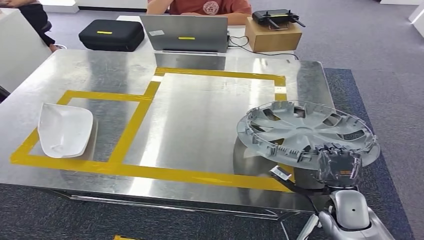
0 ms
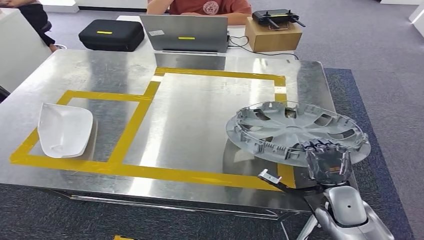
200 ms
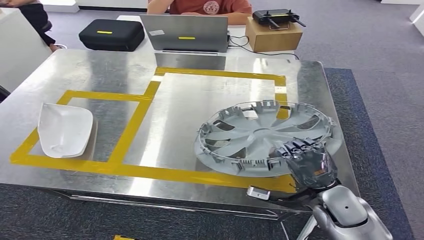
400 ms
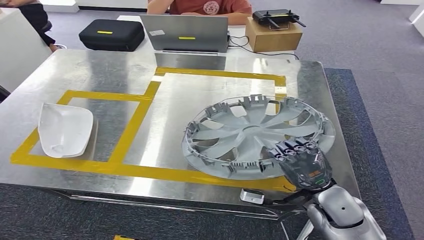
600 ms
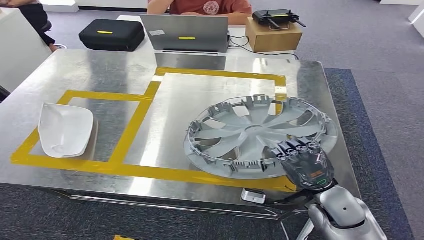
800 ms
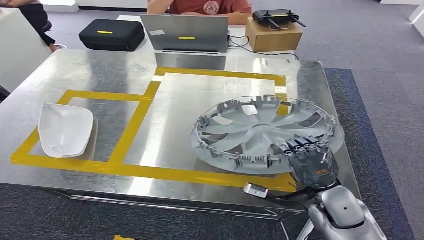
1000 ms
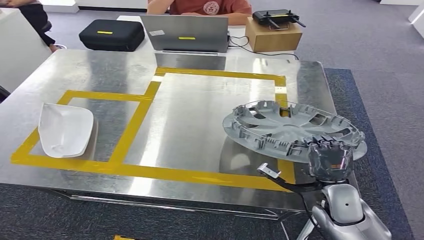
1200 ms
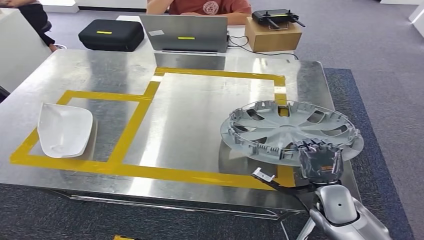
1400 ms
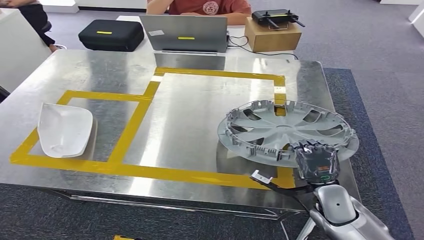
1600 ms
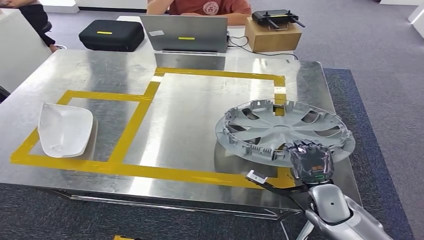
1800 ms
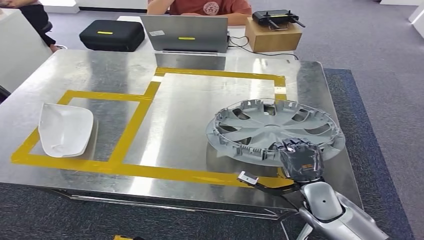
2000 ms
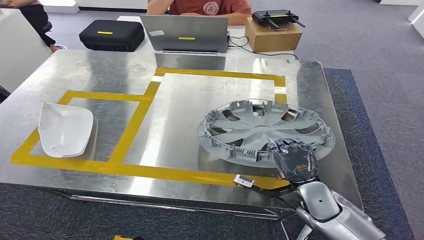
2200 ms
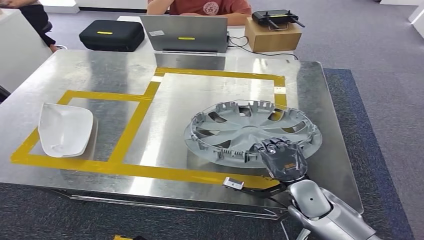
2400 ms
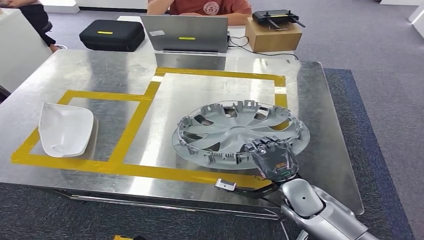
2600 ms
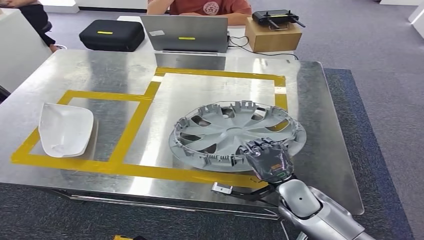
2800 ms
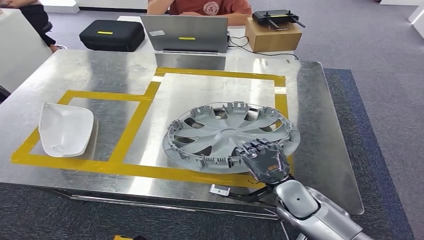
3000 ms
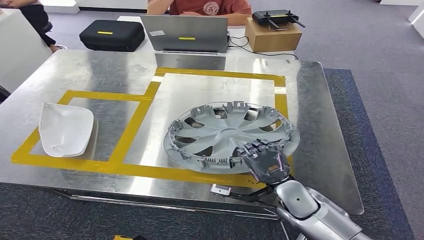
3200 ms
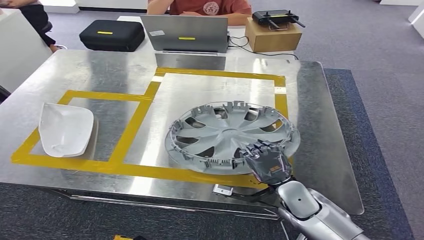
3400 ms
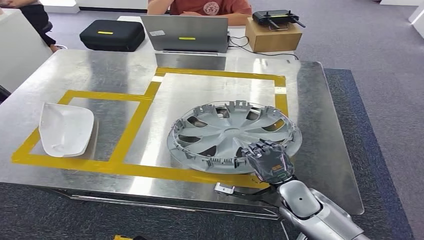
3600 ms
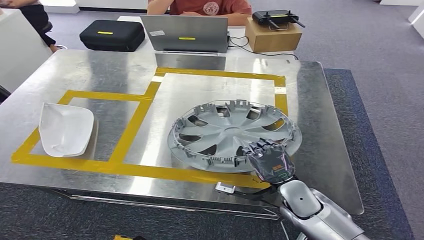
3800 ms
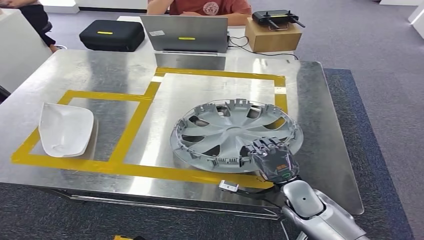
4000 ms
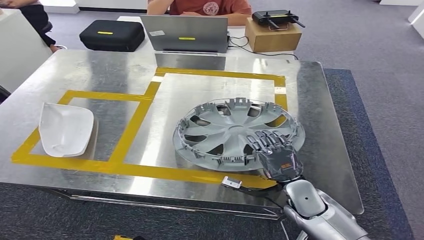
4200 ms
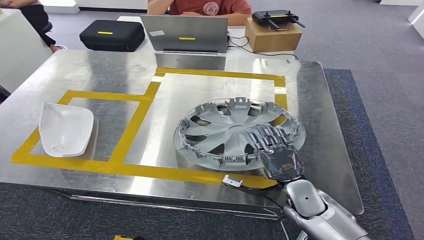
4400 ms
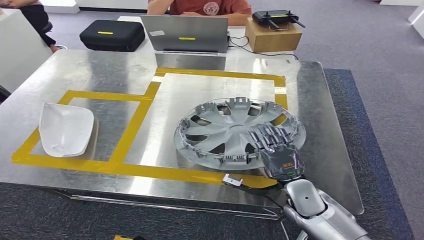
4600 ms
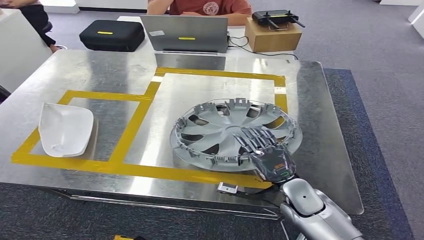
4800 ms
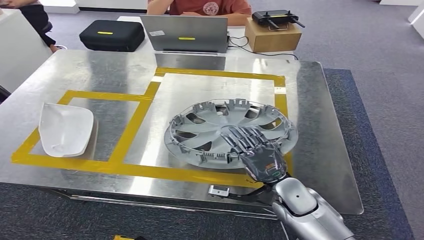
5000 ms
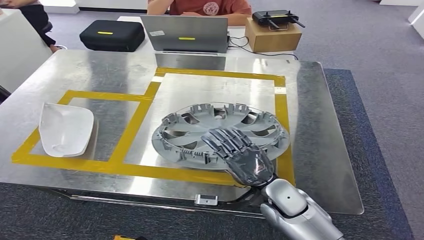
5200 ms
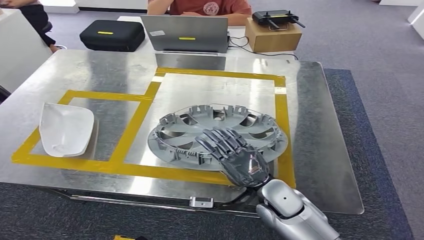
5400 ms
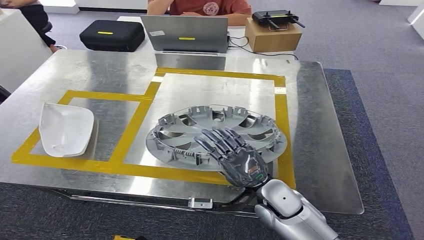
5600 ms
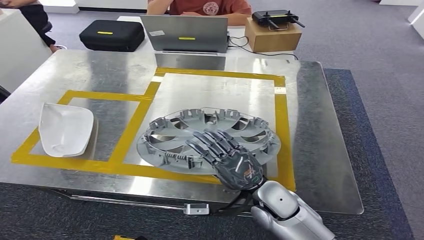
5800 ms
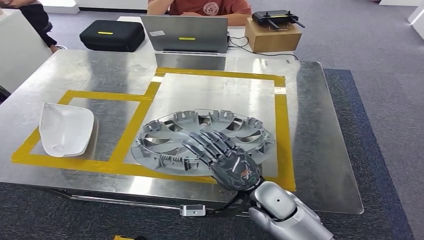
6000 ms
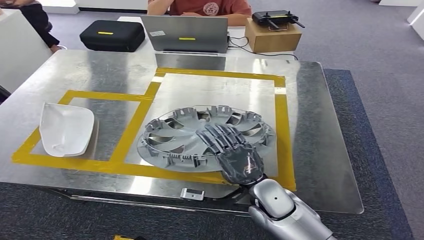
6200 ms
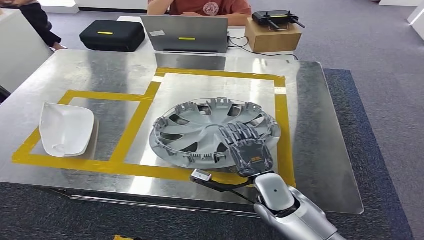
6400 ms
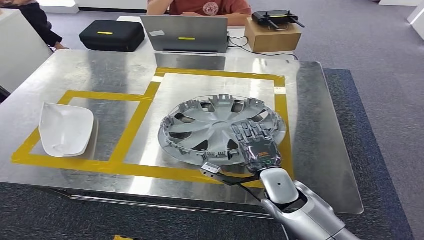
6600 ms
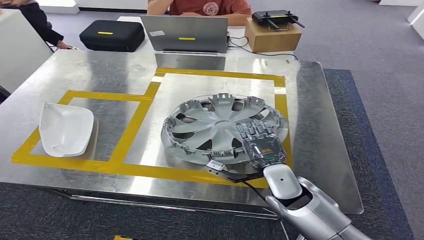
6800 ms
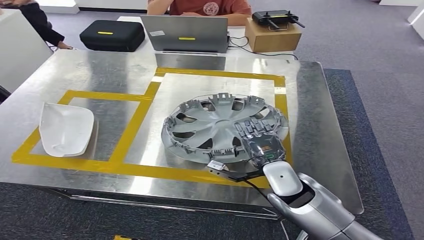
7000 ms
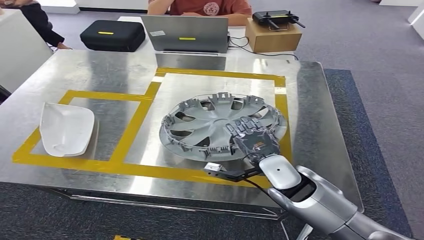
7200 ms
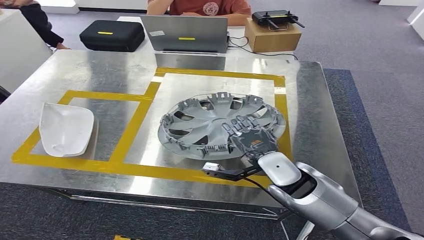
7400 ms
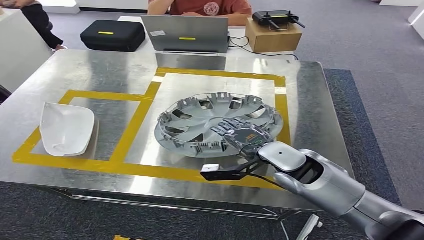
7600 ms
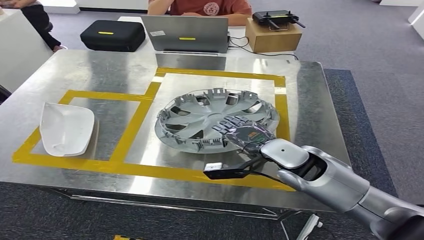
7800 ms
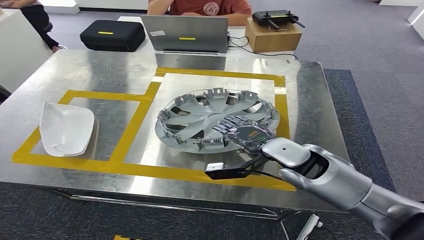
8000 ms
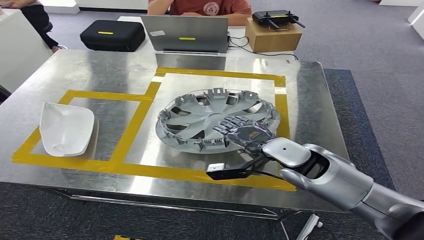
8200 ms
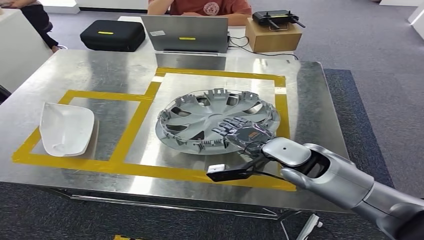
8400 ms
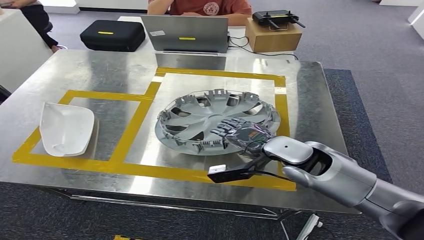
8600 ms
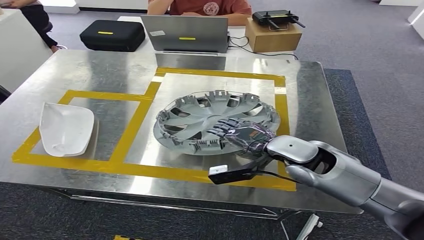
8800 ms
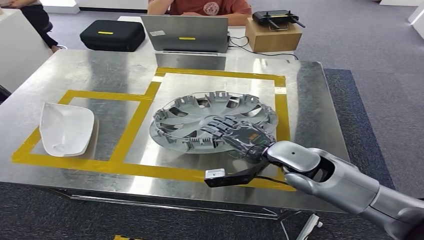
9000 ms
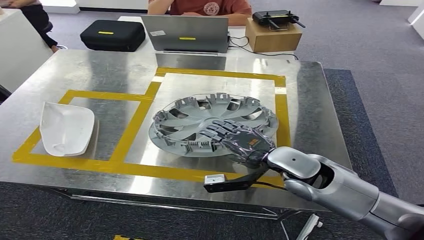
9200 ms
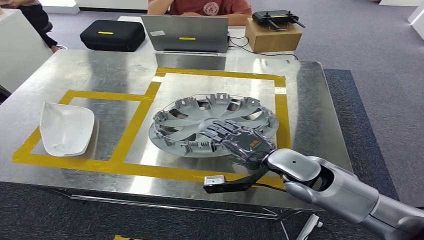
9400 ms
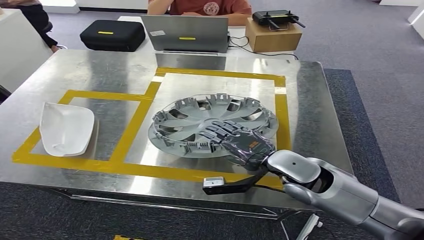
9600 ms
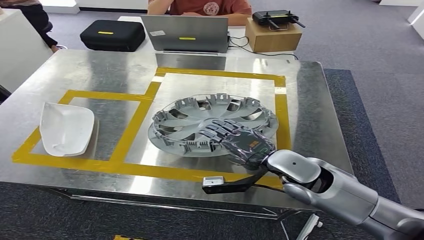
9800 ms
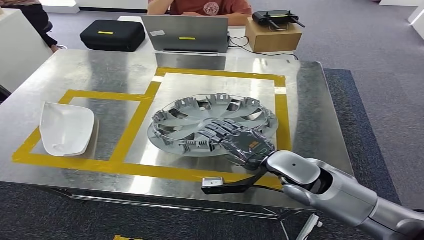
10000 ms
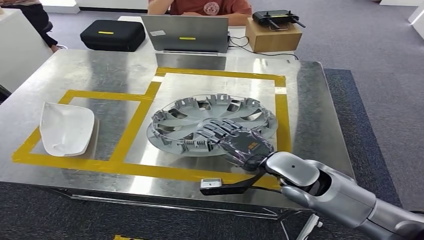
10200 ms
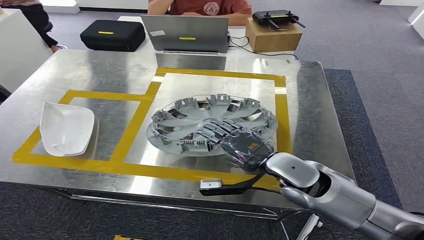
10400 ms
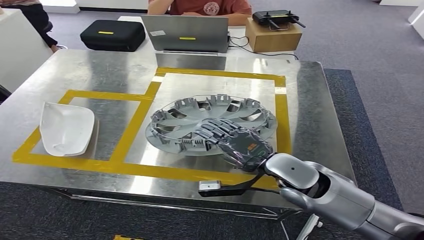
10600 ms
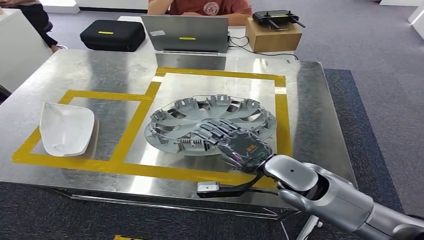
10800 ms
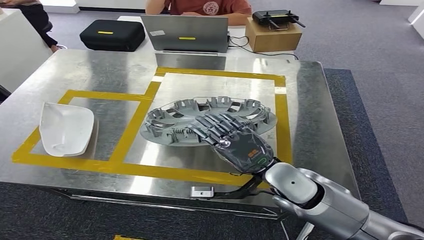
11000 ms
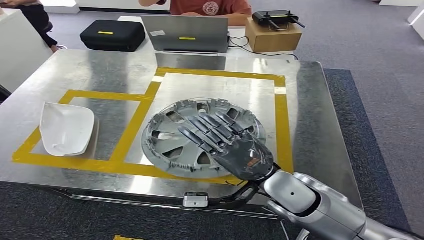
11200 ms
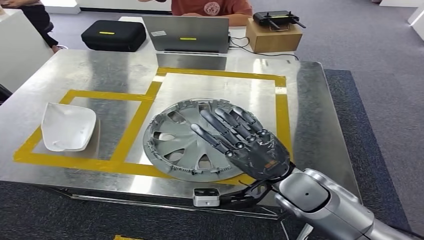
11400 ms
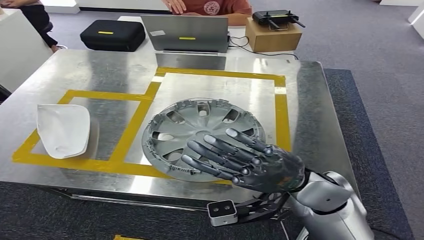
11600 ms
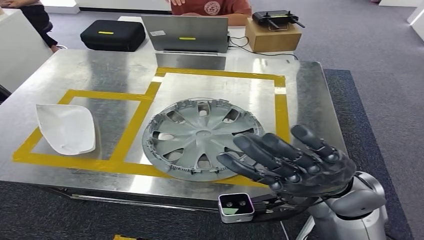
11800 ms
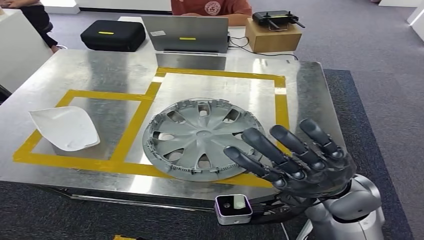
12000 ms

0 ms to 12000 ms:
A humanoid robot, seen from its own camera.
1600 ms to 3000 ms: The right hand is displaced to the left by some 10 cm.
3000 ms to 4400 ms: The hands make only small movements.
4400 ms to 6000 ms: The right hand heads to the left, covering about 10 cm.
6000 ms to 7600 ms: The right hand shifts some 10 cm forward and upward.
7600 ms to 9000 ms: The hands stay close to where they were, moving slightly.
9000 ms to 10400 ms: The hands make only small movements.
10400 ms to 12000 ms: The right hand heads upward and backward, covering approximately 10 cm.

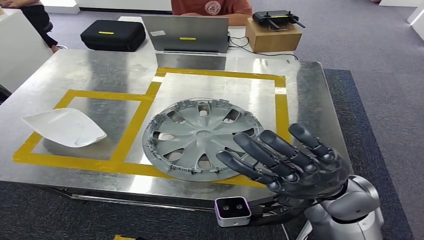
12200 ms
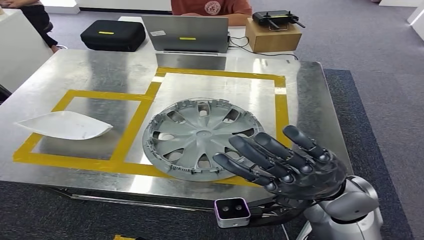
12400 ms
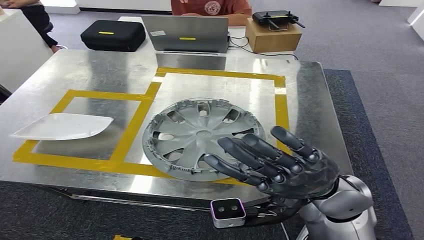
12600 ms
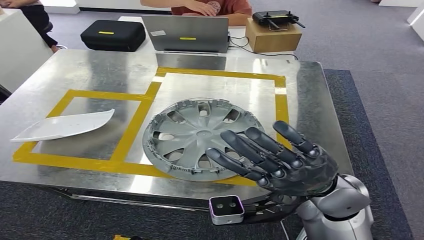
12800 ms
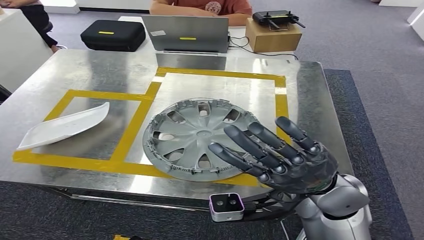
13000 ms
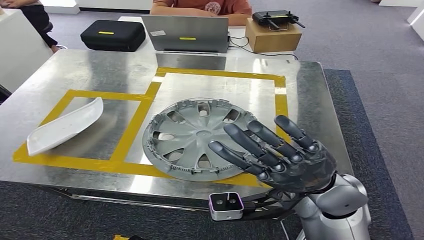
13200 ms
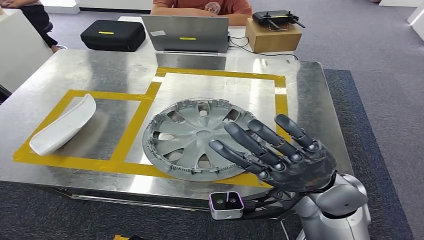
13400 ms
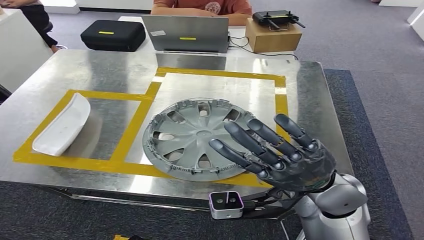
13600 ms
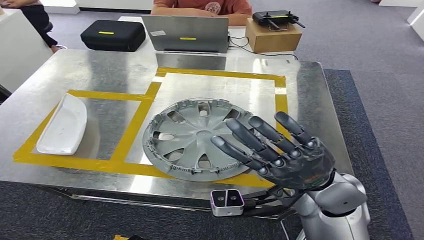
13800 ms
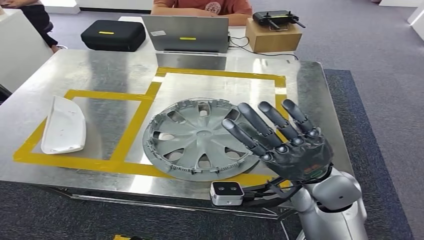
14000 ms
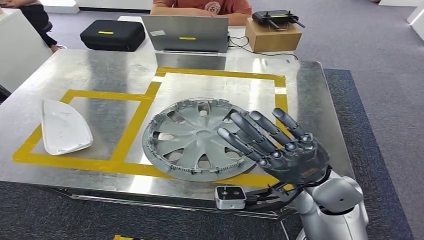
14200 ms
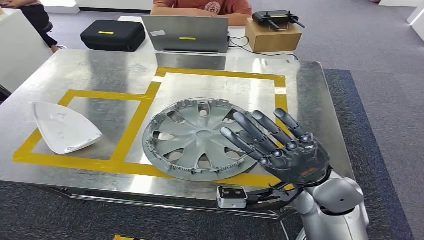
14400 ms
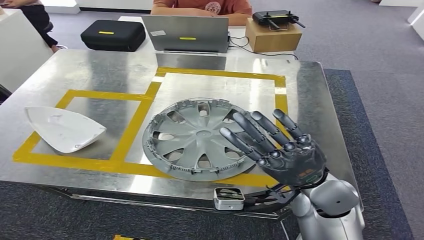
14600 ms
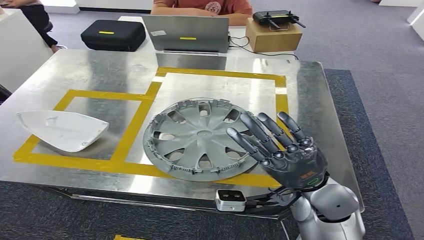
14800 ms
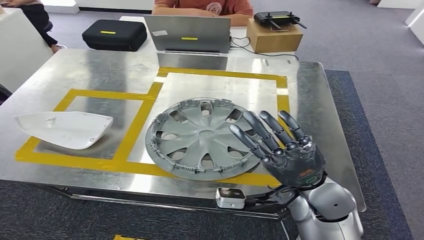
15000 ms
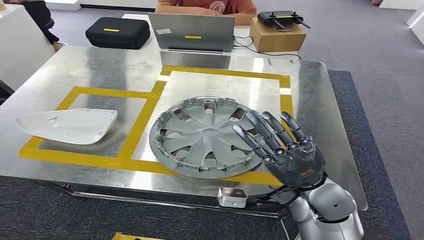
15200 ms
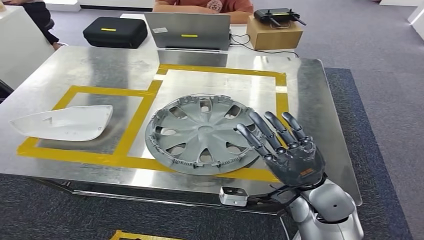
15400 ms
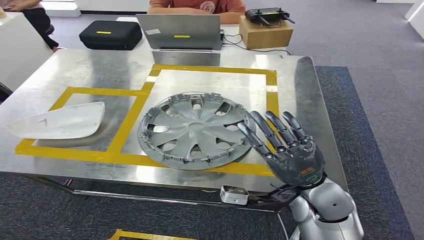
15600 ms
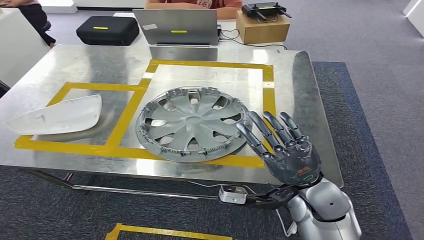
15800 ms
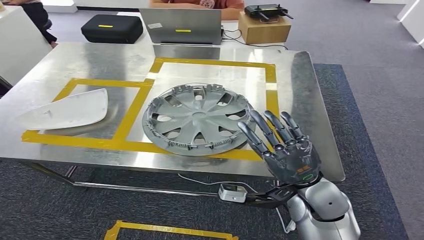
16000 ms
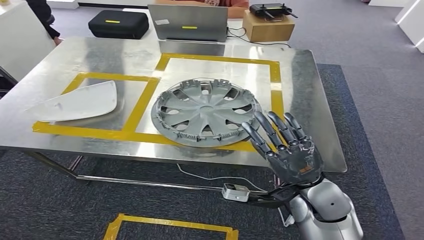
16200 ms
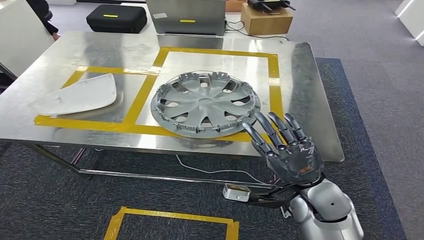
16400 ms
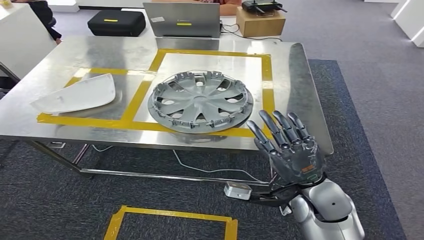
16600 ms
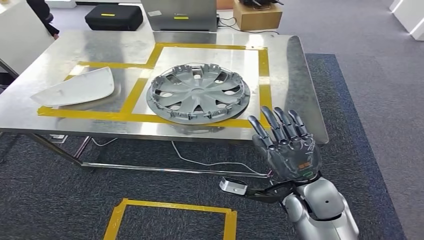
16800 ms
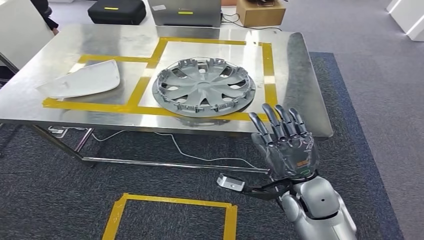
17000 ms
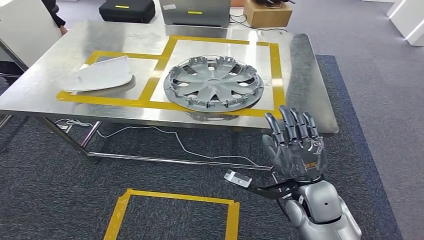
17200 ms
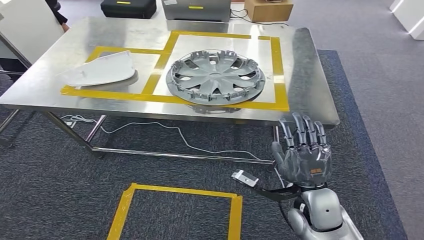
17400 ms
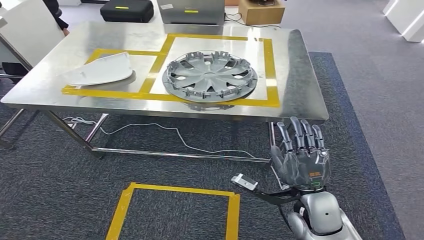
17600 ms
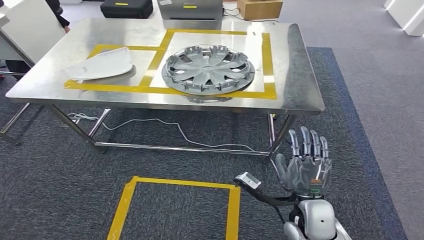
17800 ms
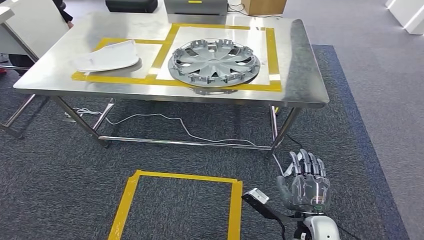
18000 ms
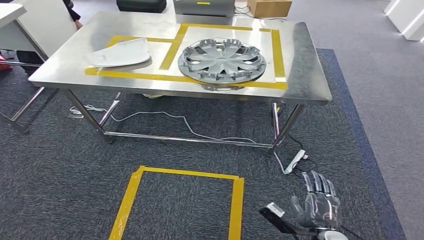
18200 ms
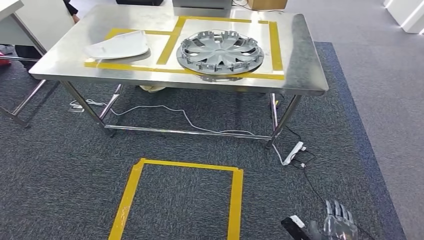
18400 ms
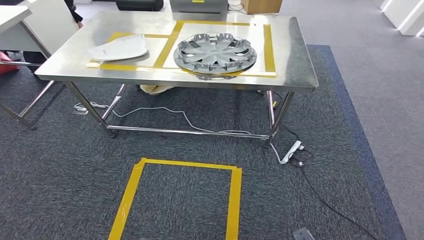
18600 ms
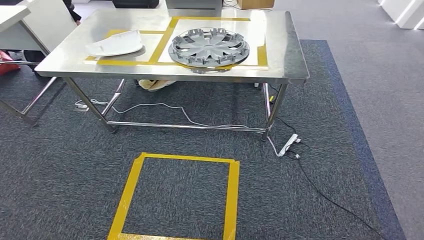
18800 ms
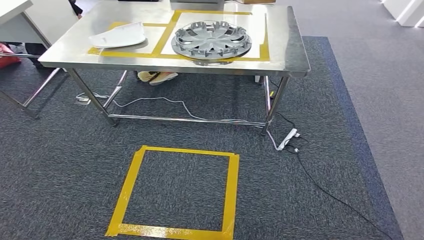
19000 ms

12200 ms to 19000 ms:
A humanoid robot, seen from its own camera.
12200 ms to 13600 ms: The hands stay close to where they were, moving slightly.
13600 ms to 15000 ms: The right hand goes about 5 cm downward.
